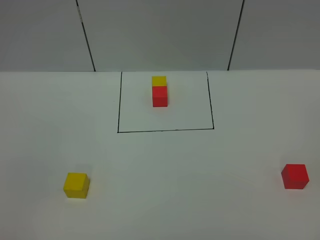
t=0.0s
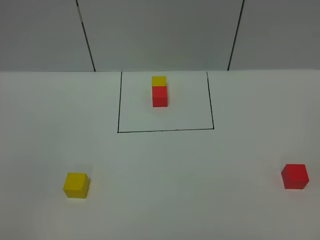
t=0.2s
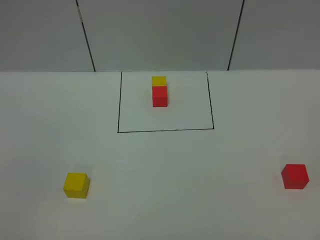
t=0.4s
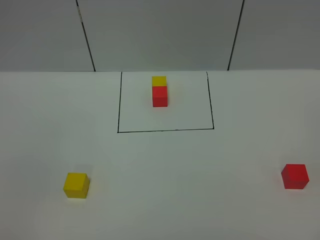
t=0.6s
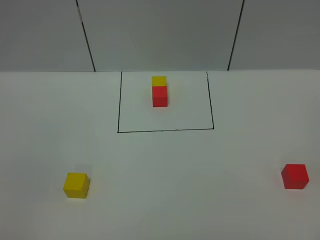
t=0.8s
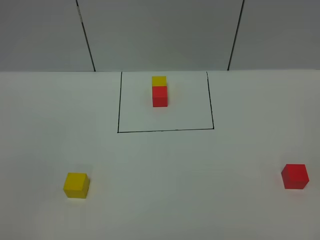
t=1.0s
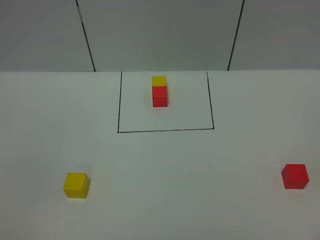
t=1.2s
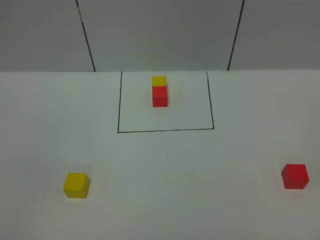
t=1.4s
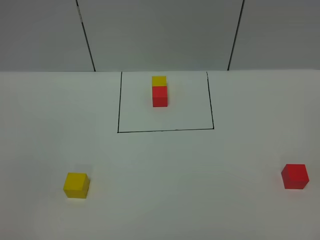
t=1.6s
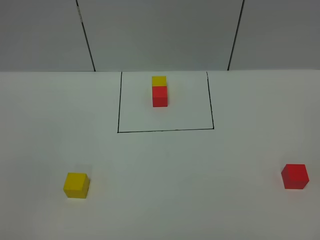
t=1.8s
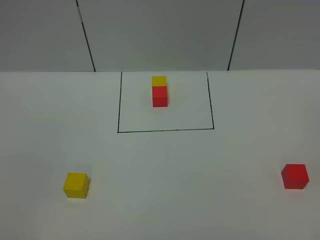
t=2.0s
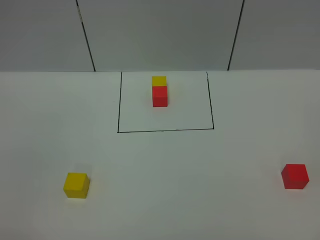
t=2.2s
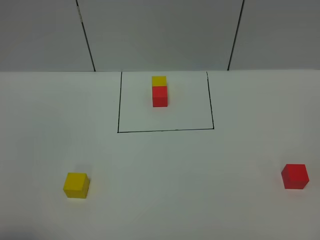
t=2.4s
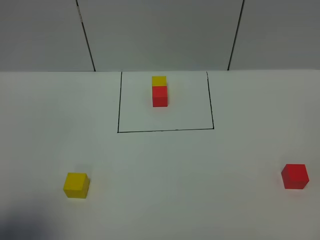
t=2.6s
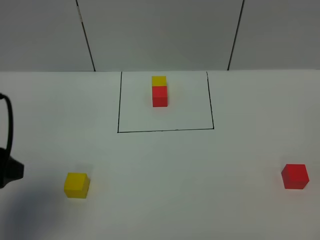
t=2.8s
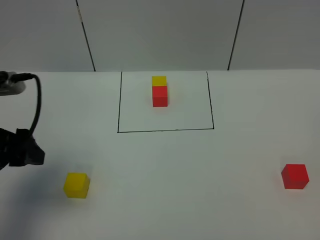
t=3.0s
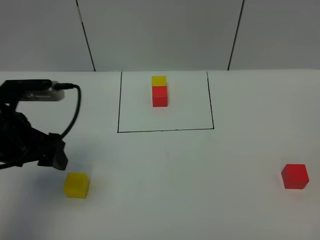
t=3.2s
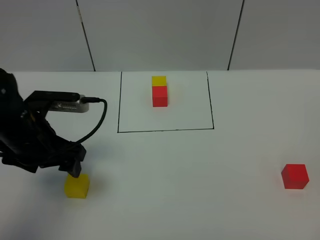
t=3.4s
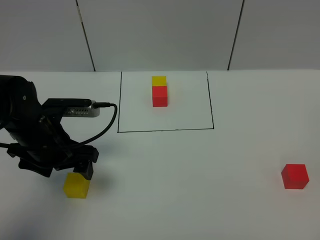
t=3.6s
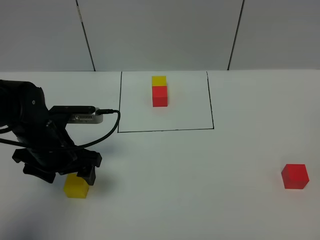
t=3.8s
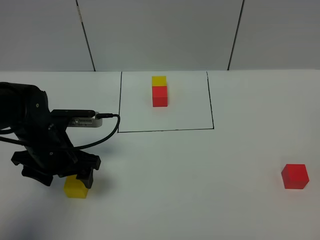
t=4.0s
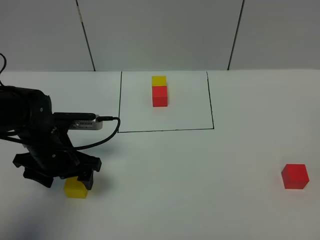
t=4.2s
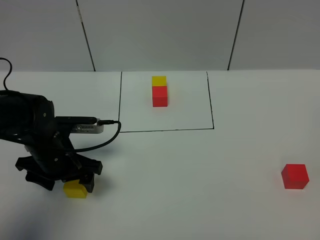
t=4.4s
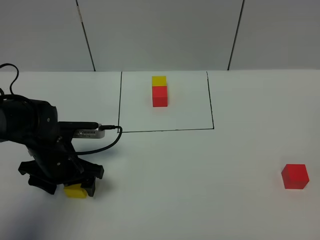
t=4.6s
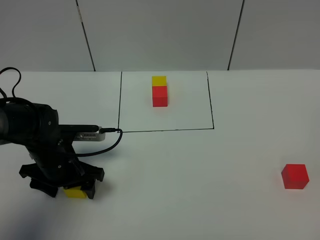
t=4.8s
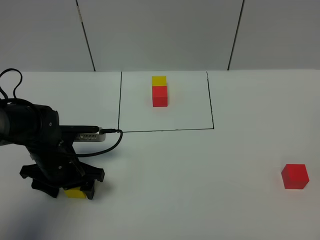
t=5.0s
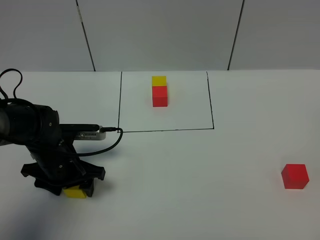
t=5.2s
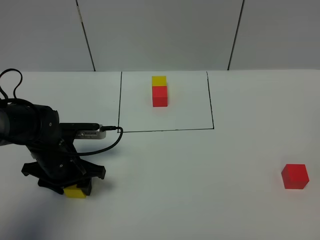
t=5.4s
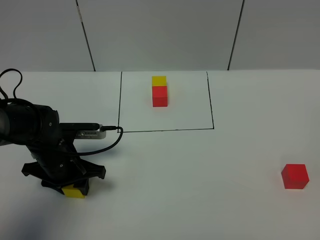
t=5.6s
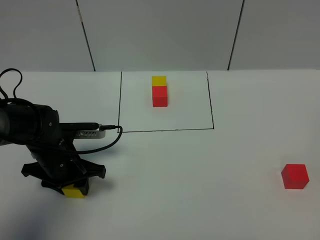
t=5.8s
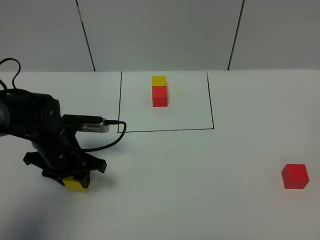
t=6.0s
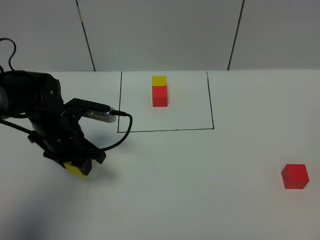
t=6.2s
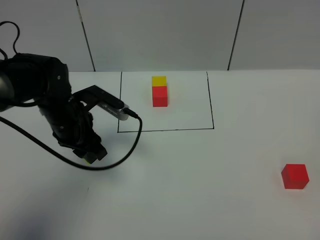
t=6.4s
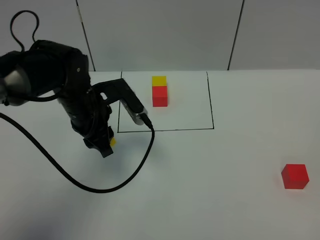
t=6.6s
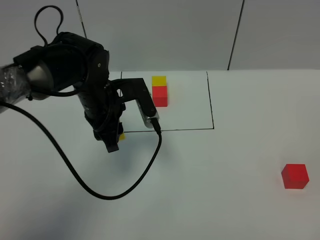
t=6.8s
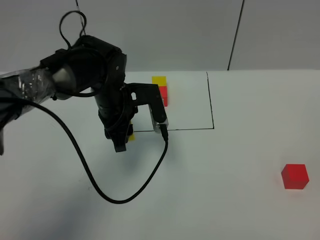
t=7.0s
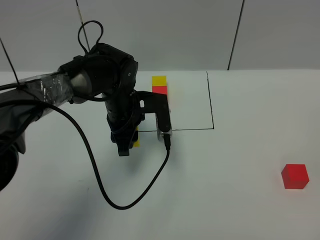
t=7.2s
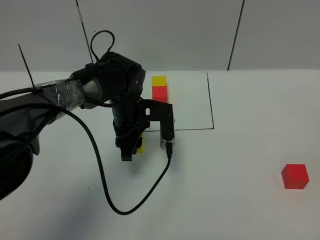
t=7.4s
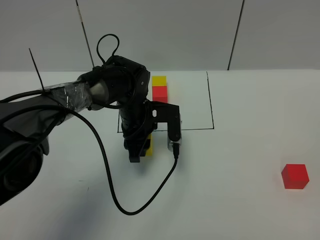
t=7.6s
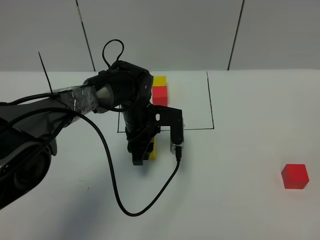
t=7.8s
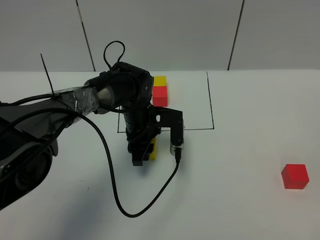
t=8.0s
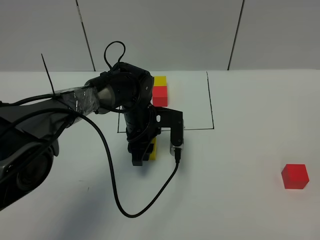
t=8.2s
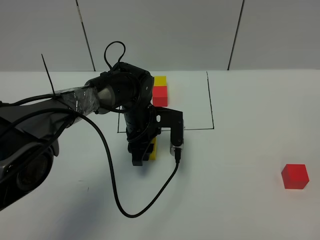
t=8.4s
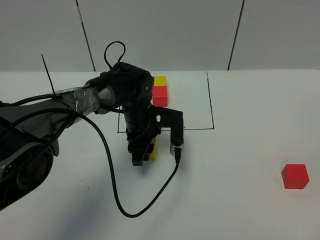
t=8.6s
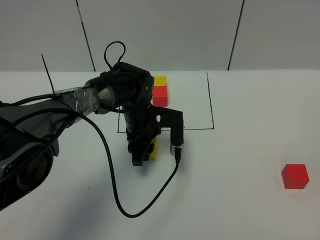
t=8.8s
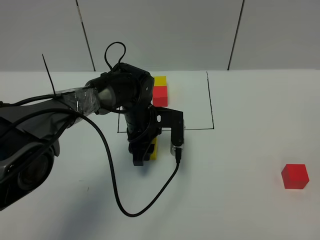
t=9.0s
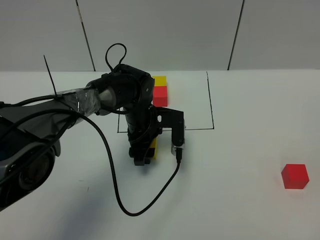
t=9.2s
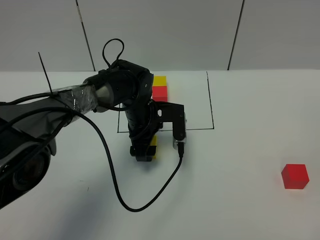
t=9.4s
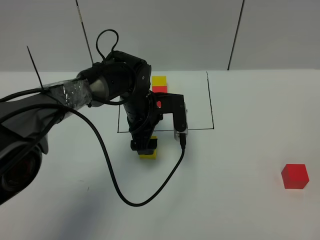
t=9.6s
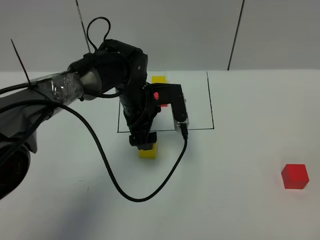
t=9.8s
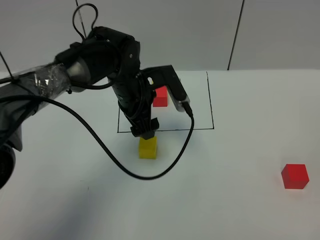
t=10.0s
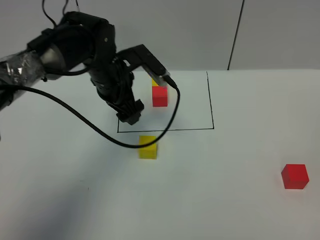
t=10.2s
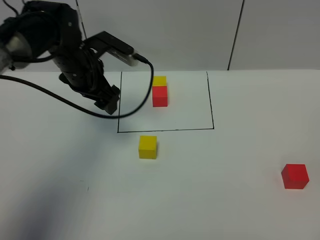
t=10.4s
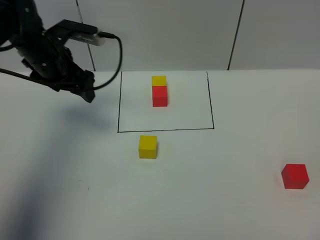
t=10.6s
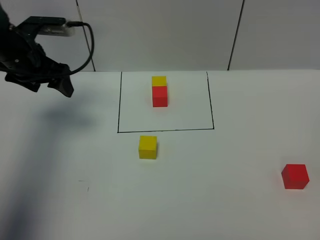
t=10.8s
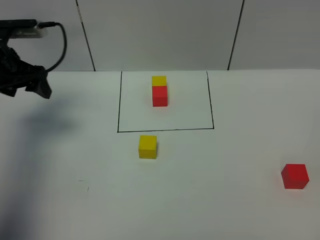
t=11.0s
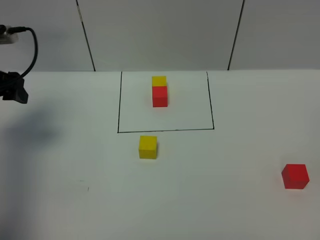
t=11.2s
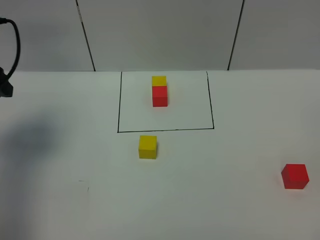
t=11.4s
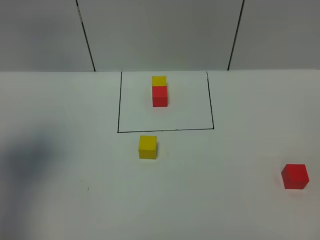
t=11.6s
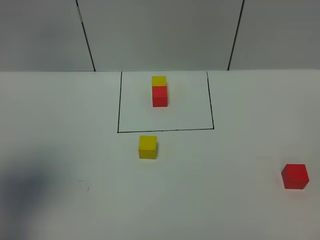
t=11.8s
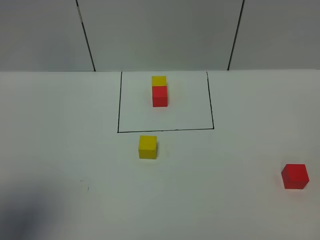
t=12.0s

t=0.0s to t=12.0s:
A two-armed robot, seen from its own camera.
Task of the whole recording: According to the building block template in front, assemble the scattered blocks together.
Step, t=2.8s to t=9.6s: Put the yellow cube in the center of the table.
t=0.0s to t=1.6s: Both grippers stay put.
t=1.6s to t=3.0s: The left gripper travels forward by some 25 cm, and opens its fingers.
t=3.0s to t=4.4s: The left gripper is displaced downward, forward and to the right by roughly 15 cm.
t=4.4s to t=6.0s: The left gripper closes.
t=6.0s to t=7.6s: The left gripper moves to the right and forward, approximately 15 cm.
t=7.6s to t=9.0s: The grippers move only a little.
t=9.0s to t=10.4s: The left gripper shifts about 20 cm upward and to the left, and opens up.
t=10.4s to t=12.0s: The left gripper goes about 35 cm backward, to the left and upward.

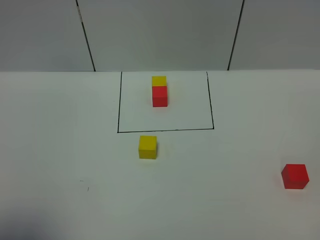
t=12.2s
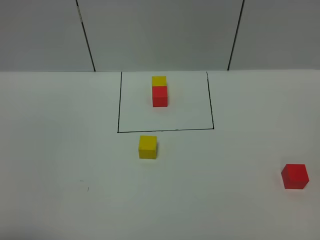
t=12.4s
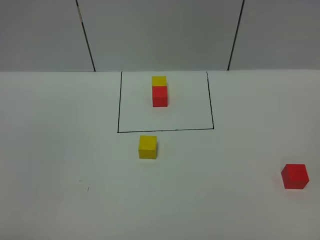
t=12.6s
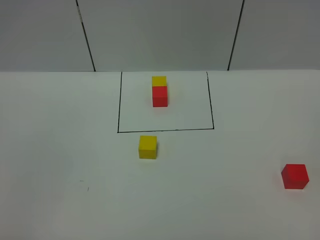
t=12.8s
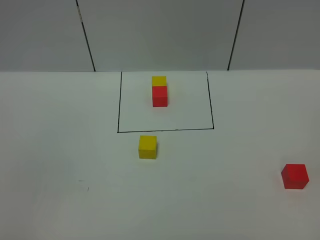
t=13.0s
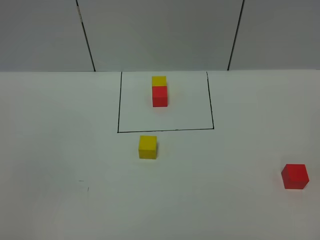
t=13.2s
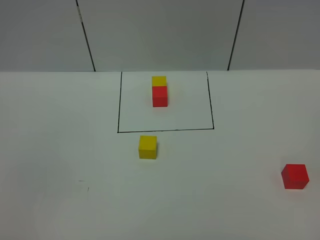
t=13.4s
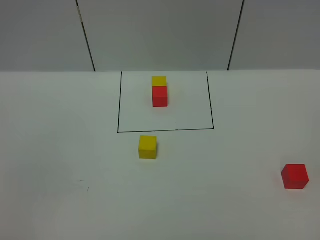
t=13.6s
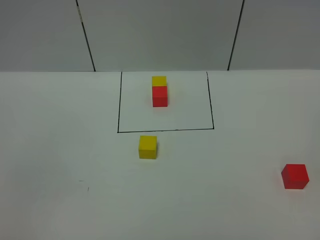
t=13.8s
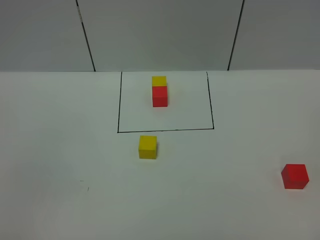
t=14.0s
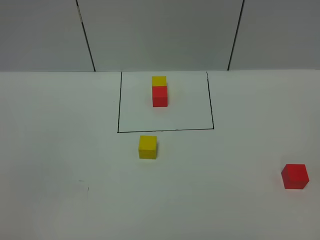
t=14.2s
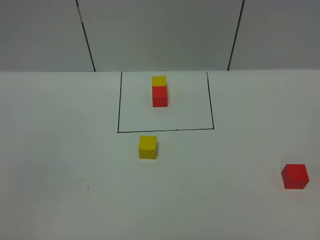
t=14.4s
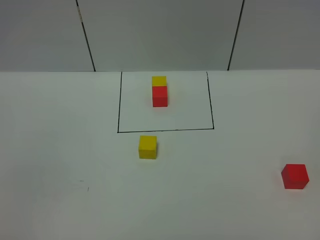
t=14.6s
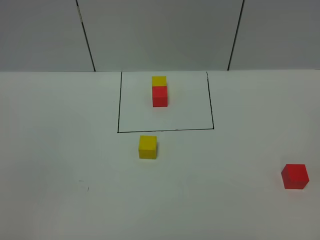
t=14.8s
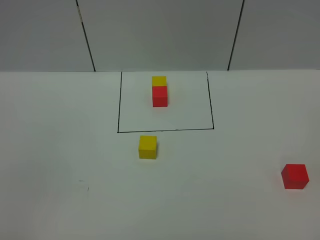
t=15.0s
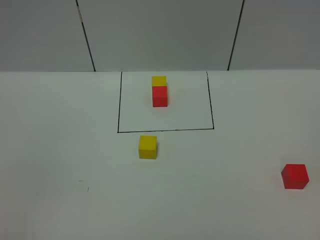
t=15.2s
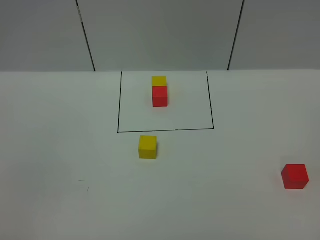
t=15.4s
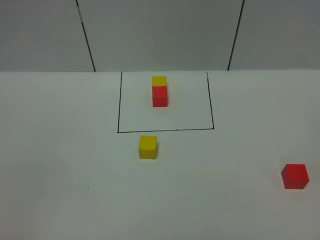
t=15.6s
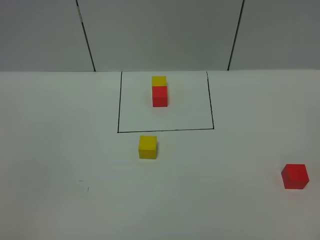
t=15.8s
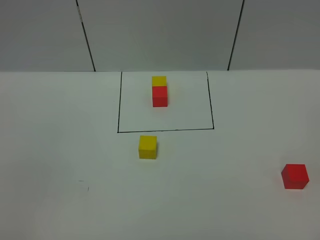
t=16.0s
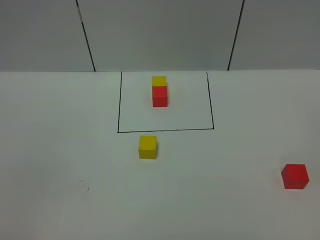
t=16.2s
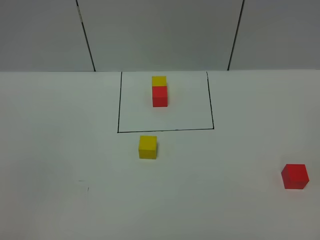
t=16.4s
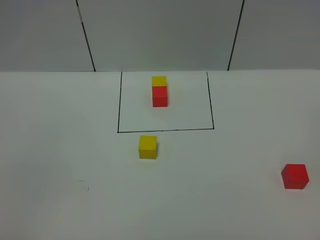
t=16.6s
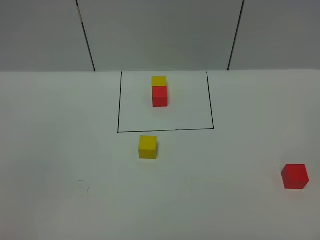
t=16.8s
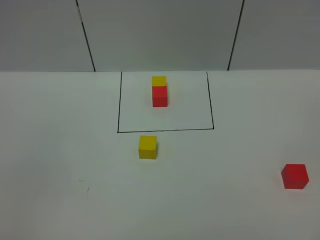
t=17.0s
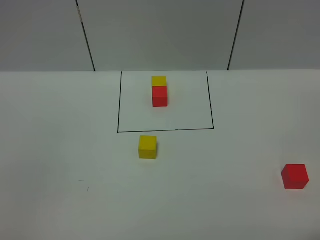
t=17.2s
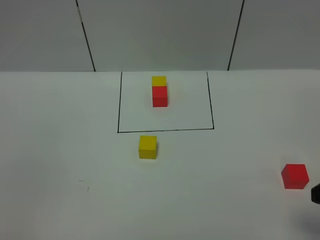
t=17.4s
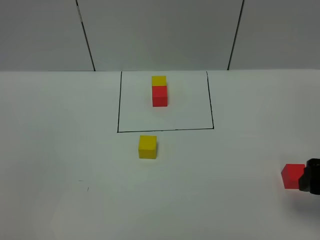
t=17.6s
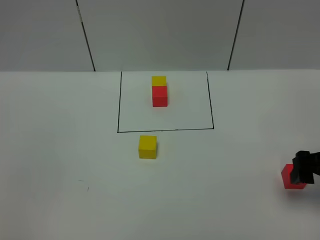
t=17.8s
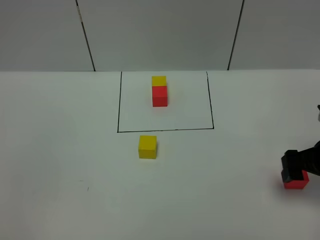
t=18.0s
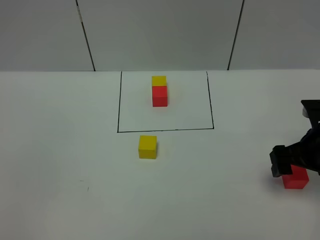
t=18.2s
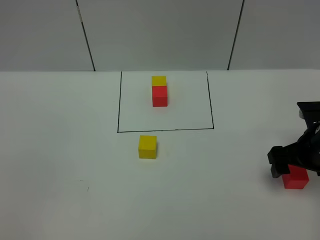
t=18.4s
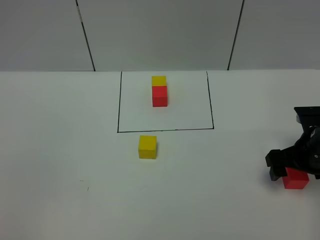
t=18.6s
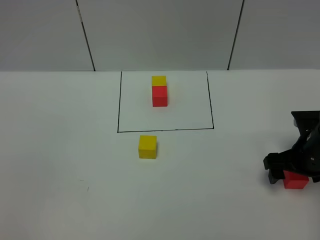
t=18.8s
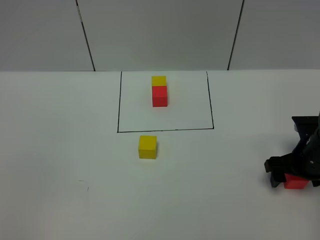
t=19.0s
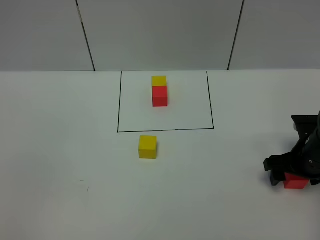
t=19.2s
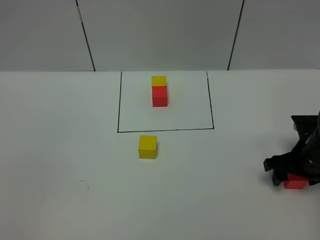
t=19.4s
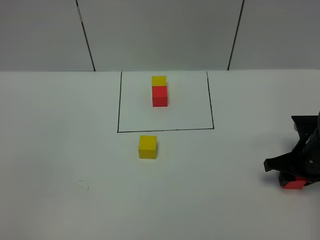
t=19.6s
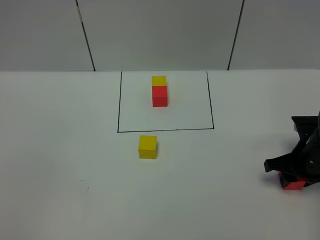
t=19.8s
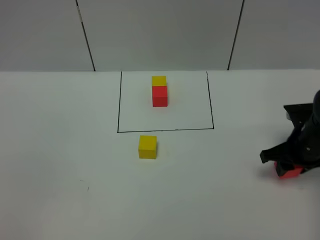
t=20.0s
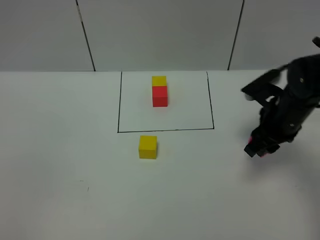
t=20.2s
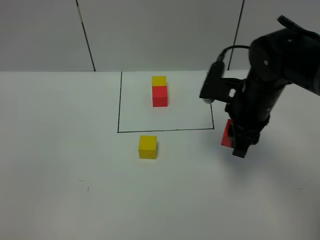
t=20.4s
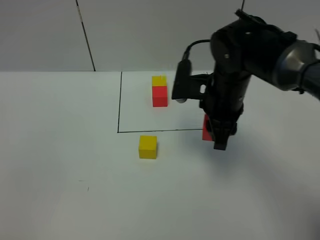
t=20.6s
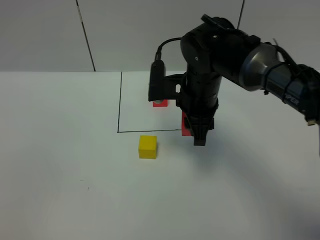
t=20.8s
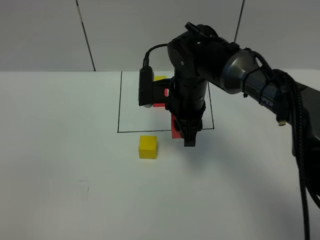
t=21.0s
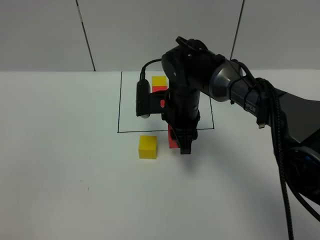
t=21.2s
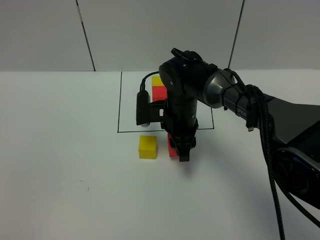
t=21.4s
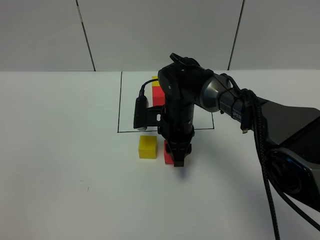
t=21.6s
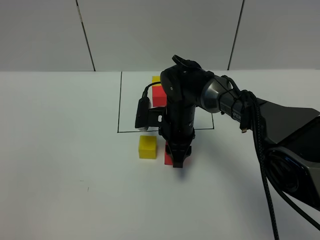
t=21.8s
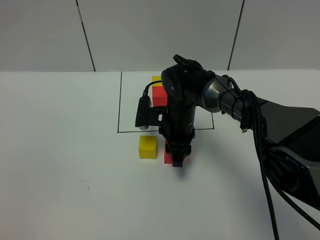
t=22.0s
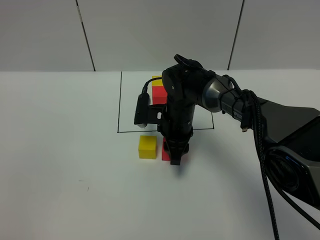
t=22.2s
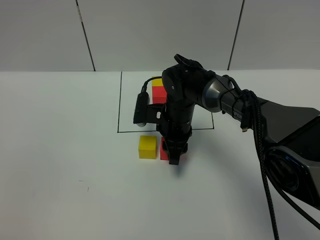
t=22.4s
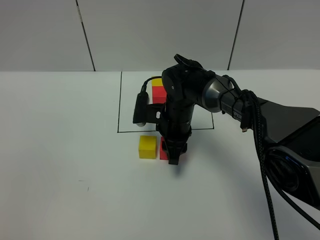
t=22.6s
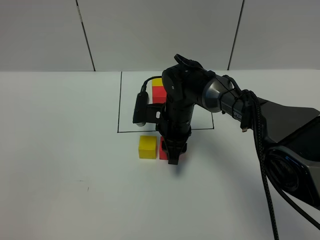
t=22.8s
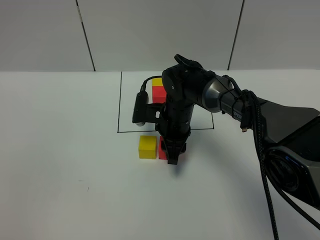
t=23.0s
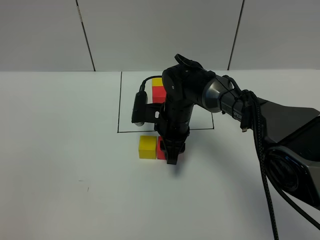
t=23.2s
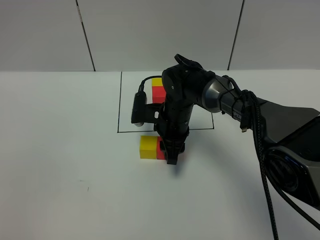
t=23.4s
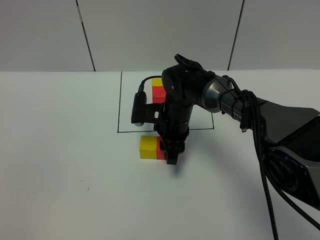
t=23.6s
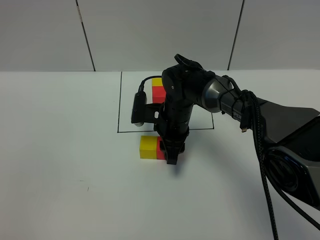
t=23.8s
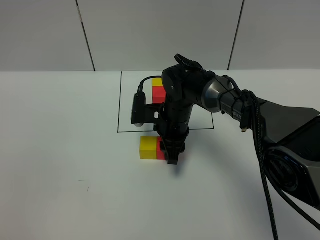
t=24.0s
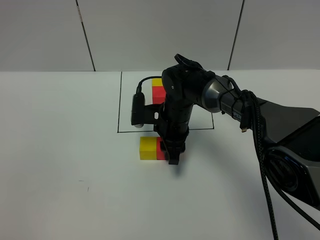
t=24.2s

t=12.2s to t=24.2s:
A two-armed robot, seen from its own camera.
Task of the whole recording: According to the building block template in front, assemble the scattered blocks together.
t=12.2s to t=13.8s: The left gripper heads backward and downward, covering about 10 cm, and closes its fingers.
t=15.2s to t=16.6s: Both grippers stay put.
t=16.6s to t=18.2s: The right gripper travels forward by about 30 cm.
t=18.2s to t=19.8s: The right gripper moves downward, roughly 5 cm, and closes.
t=19.8s to t=21.2s: The right gripper goes approximately 25 cm to the left.
t=21.2s to t=22.6s: The grippers move only a little.
t=22.6s to t=24.2s: The two grippers keep their place.
